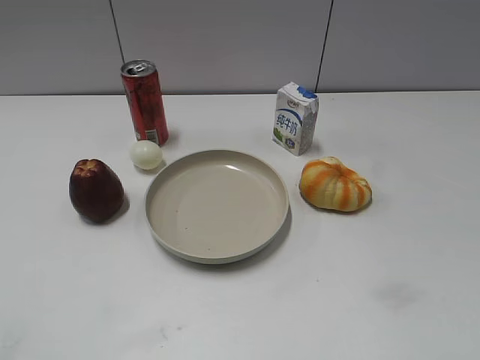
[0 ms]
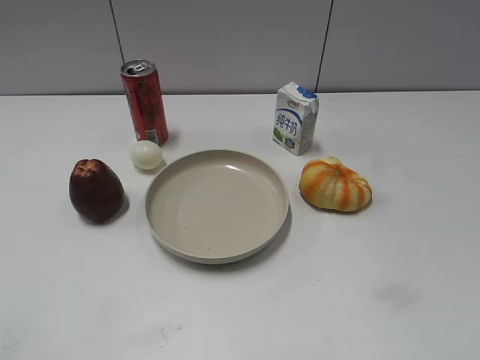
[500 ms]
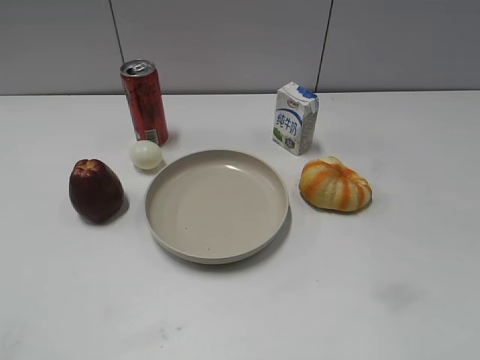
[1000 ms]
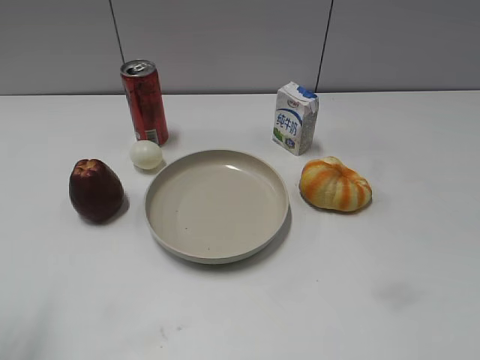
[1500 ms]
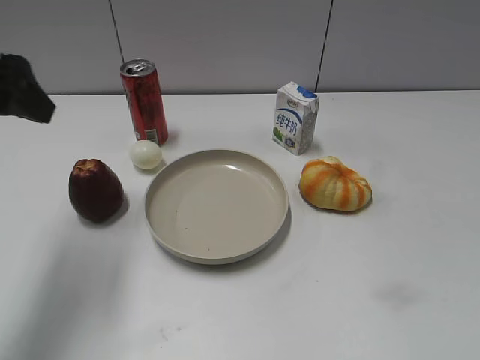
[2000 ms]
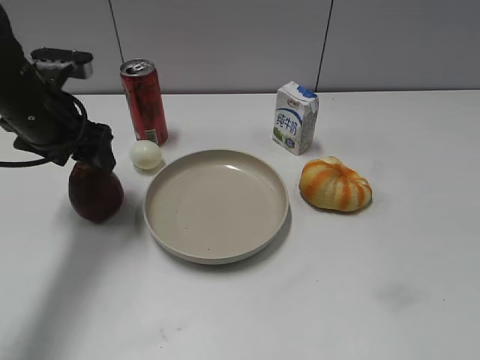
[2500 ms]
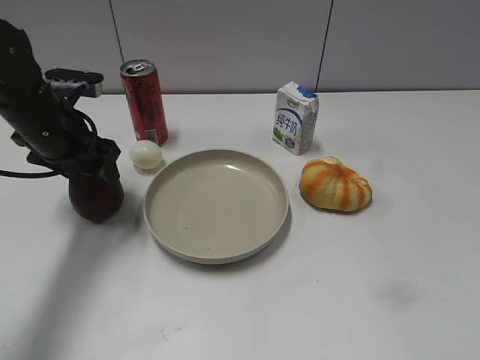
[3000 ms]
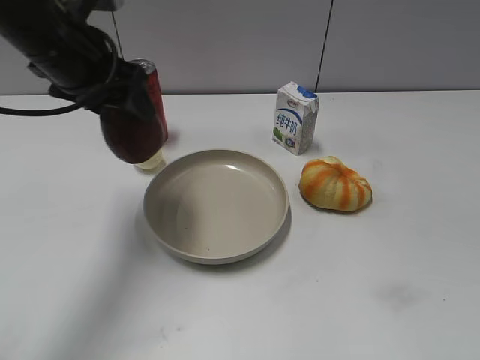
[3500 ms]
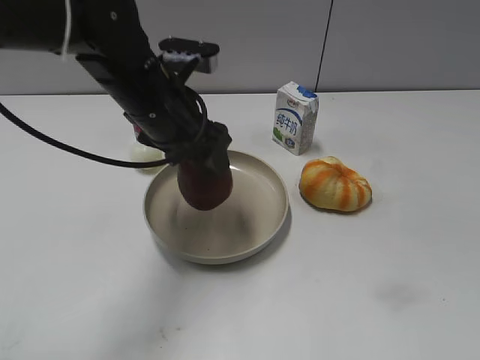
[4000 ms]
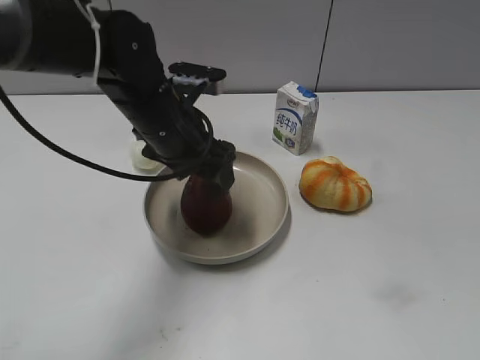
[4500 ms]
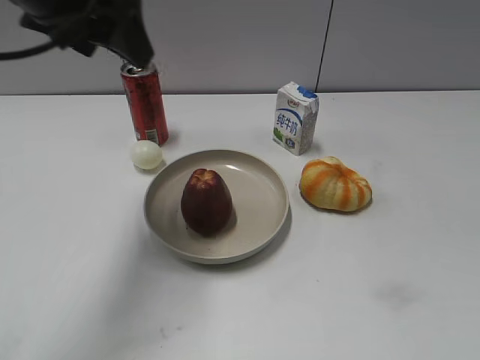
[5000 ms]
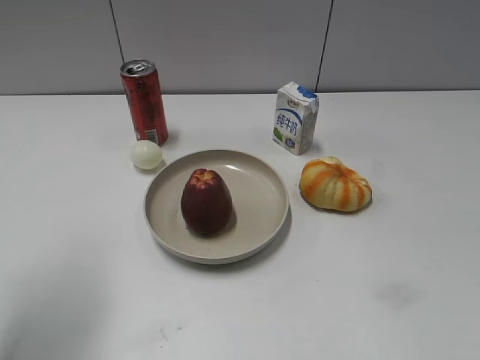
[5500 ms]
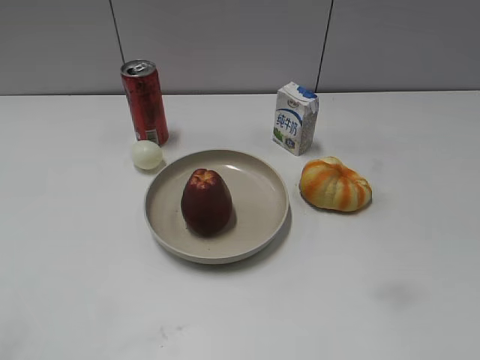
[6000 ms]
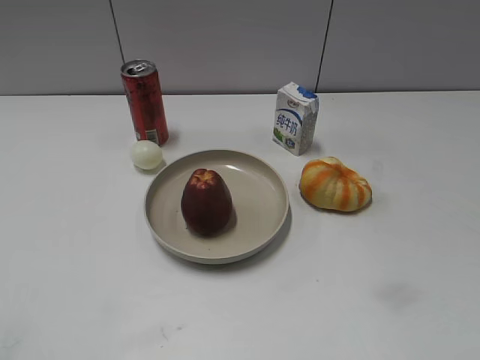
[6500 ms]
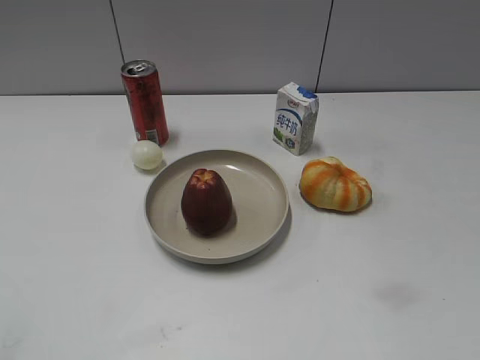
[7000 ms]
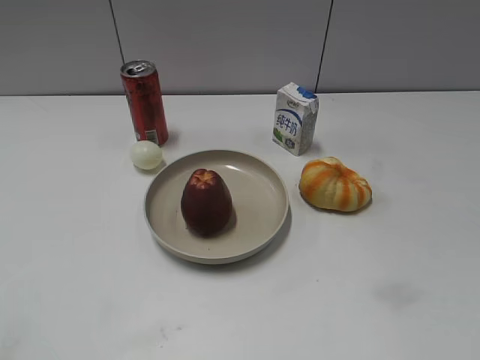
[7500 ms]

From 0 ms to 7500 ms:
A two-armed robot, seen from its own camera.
Step, from 1000 ms to 2500 ms: Grasp the apple with left gripper.
Step, from 3000 ms to 4500 ms: Place the apple on the plate with left gripper.
From 2000 ms to 4000 ms: The left gripper goes about 20 cm to the right, downward and forward, and closes.
From 4000 ms to 5500 ms: The left gripper shifts some 20 cm to the left, upward and backward, and opens up.
From 5500 ms to 7500 ms: The left gripper travels backward by about 25 cm, and closes its fingers.
